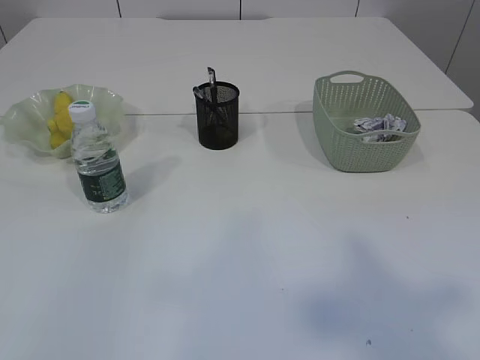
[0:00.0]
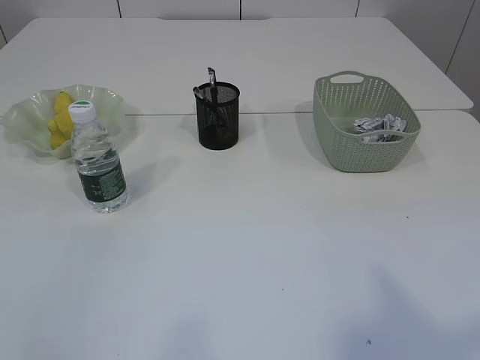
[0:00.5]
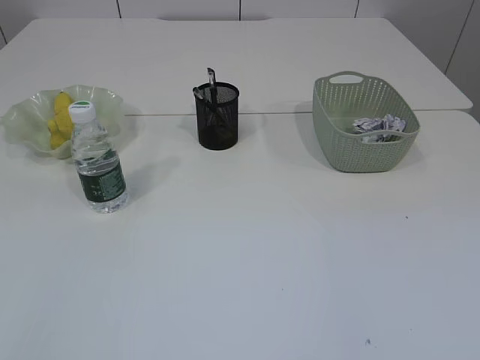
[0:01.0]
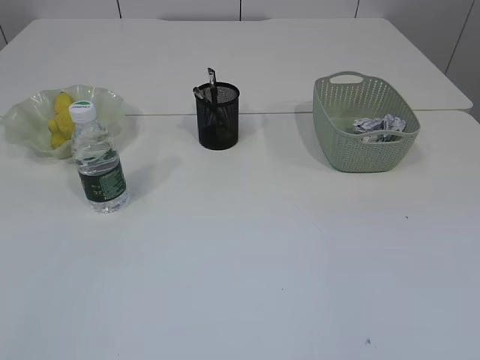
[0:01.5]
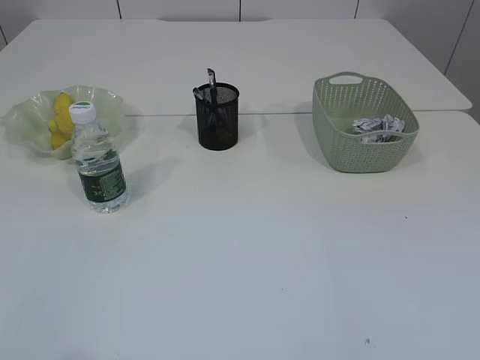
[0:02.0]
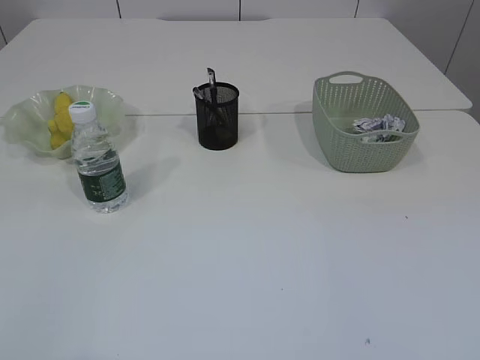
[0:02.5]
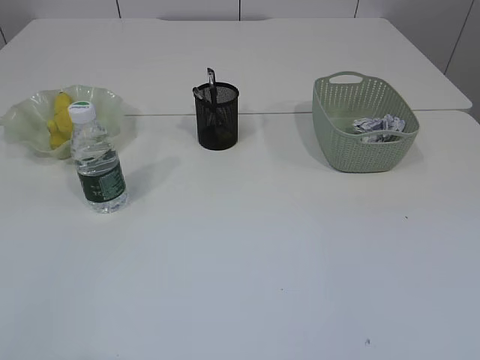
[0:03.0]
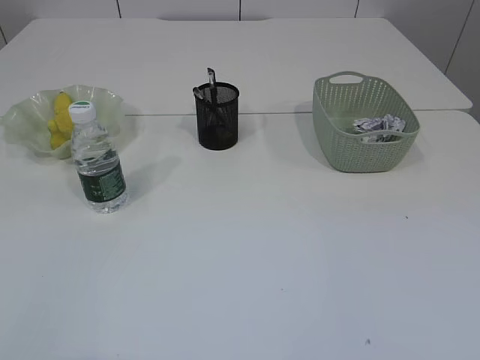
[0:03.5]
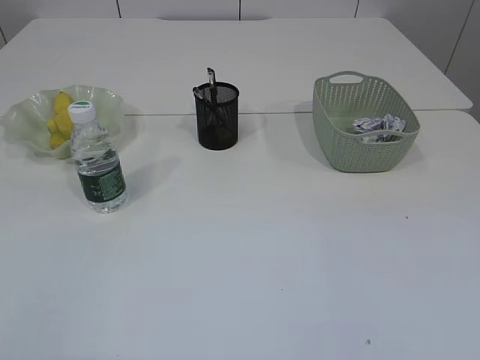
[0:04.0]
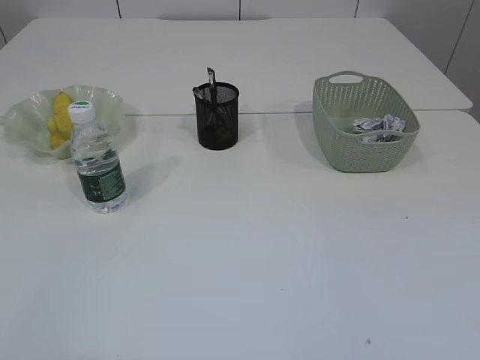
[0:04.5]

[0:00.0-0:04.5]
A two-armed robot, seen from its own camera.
0:00.0 to 0:02.0: The right gripper travels downward by about 25 cm.

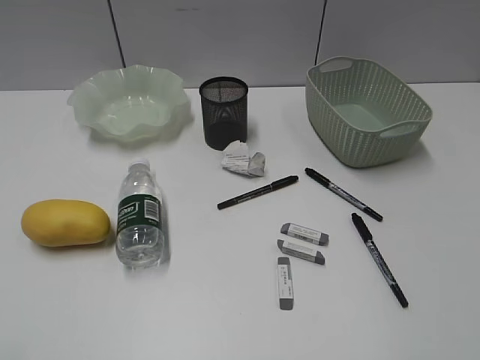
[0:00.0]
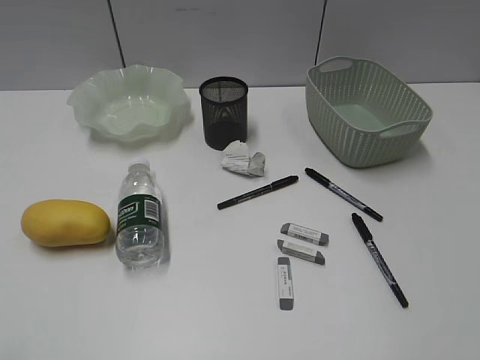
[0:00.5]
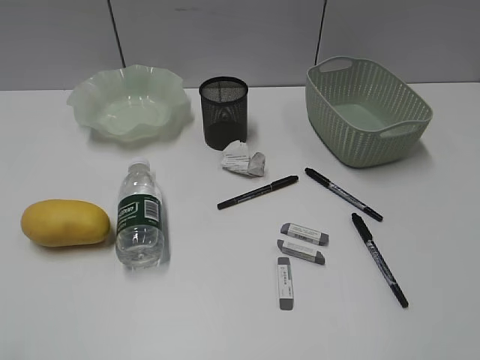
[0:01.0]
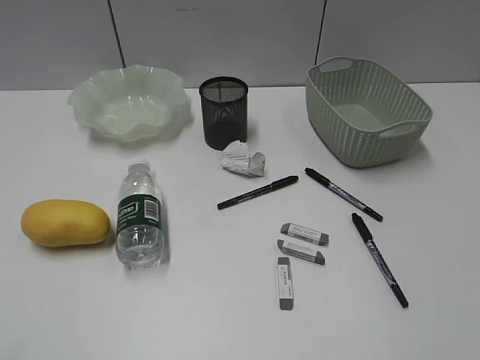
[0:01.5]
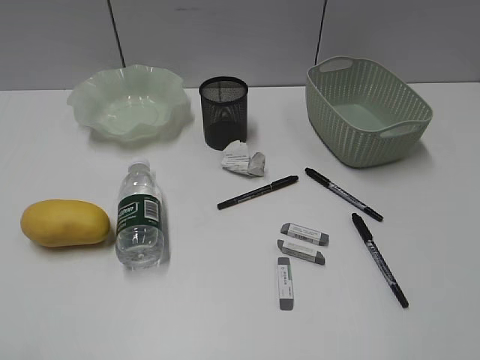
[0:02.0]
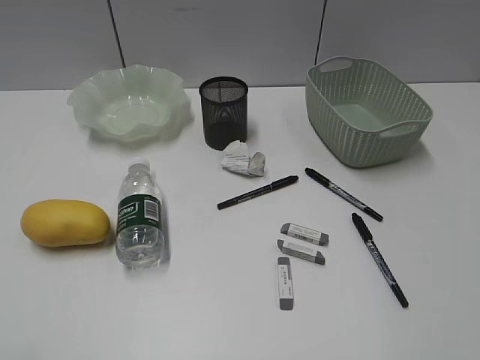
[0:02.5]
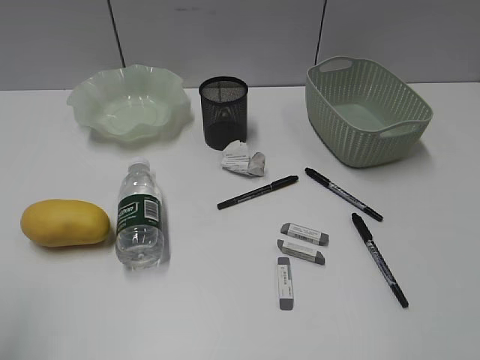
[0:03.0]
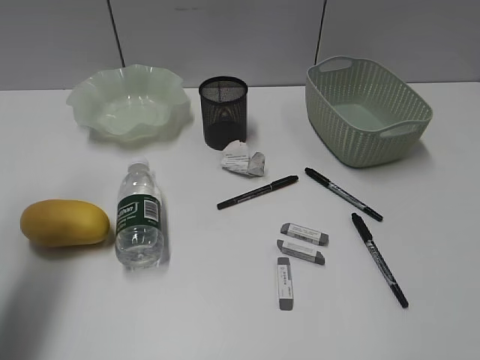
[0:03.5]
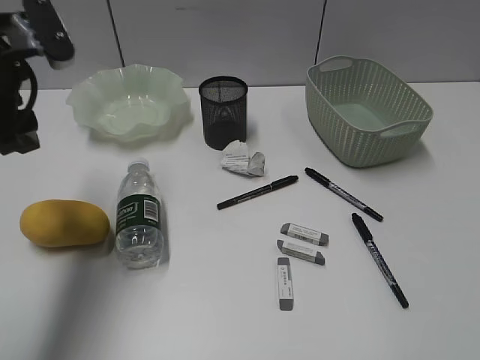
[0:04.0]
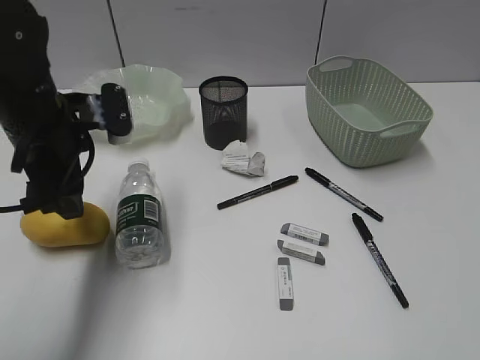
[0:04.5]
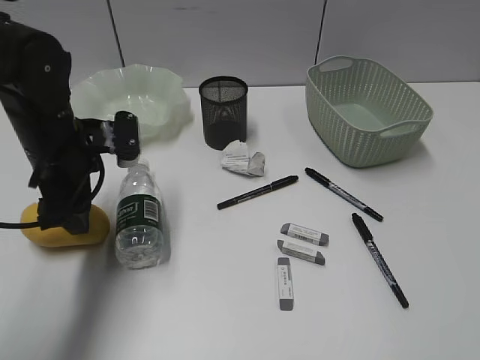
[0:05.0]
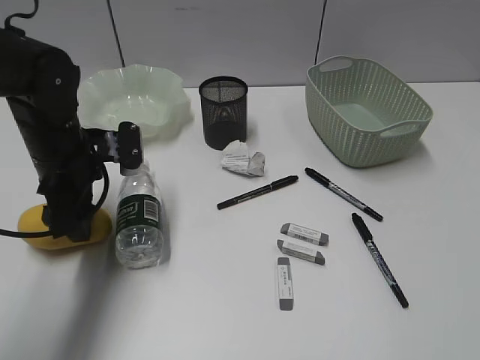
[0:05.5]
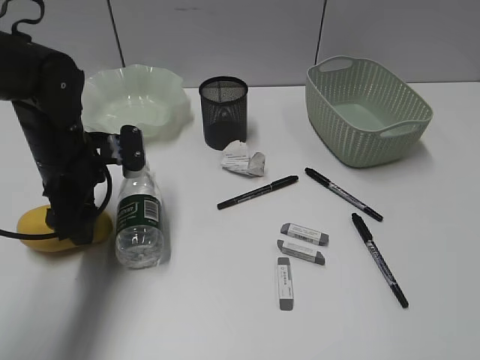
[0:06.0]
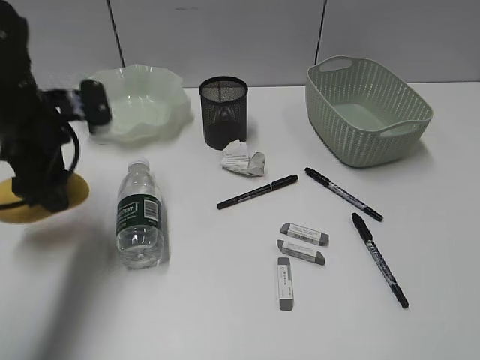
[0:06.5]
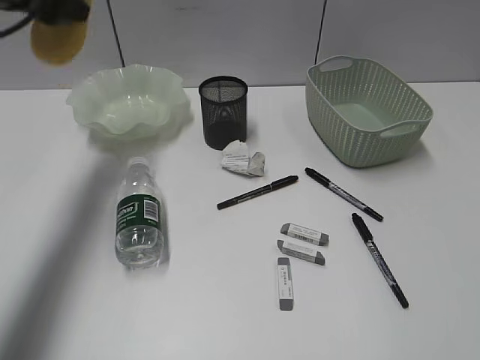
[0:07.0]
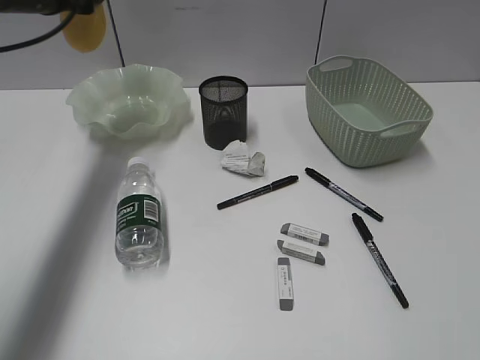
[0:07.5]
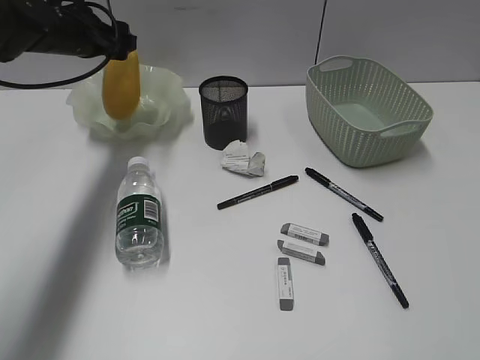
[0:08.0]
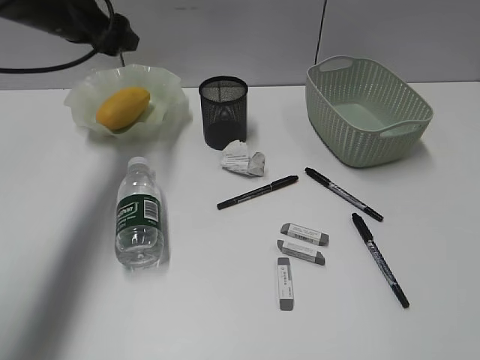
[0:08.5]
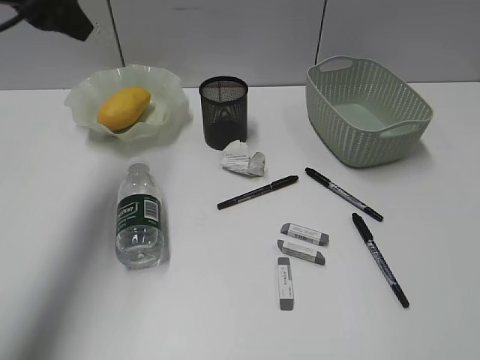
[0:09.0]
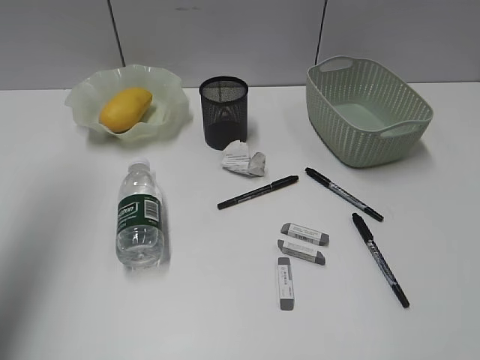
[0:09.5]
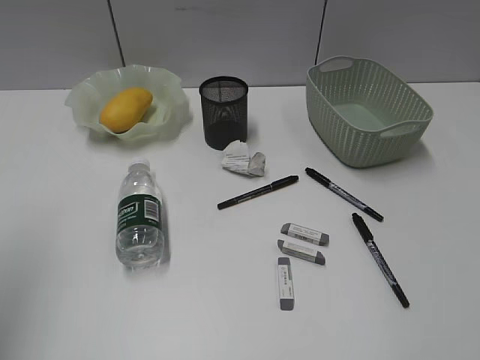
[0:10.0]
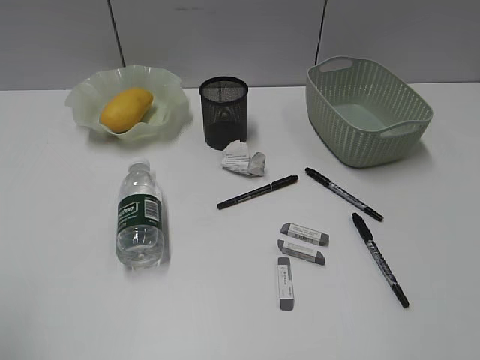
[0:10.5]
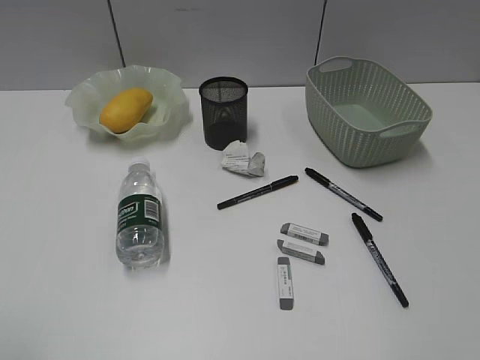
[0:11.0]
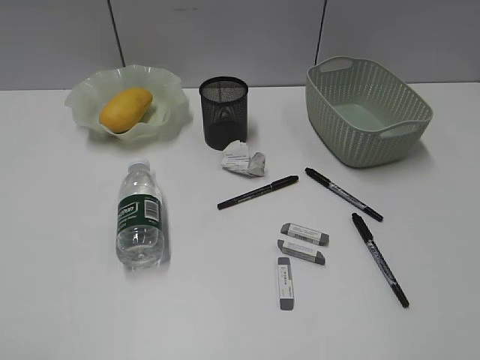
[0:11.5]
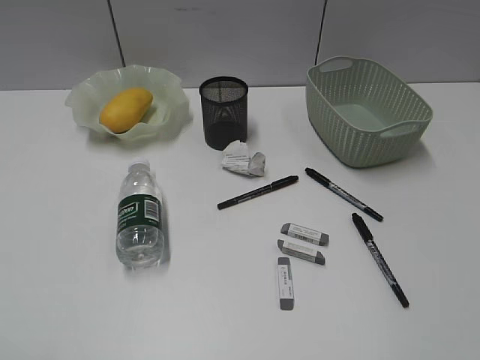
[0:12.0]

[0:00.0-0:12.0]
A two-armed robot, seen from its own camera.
Step, 0:04.0 to 0:06.0: Grasp the mango with left gripper.
Step, 0:06.5 to 0:08.0: Place the mango in the plate with left gripper.
0:02.0 to 0:04.0: The left gripper goes some 30 cm forward.
0:04.0 to 0:06.0: The left gripper goes about 15 cm downward.
0:06.0 to 0:08.0: The left gripper shifts roughly 15 cm forward and upward.
0:08.0 to 0:10.0: The left gripper is displaced backward and upward by approximately 35 cm.
0:10.0 to 0:12.0: The left gripper moves backward, roughly 15 cm.

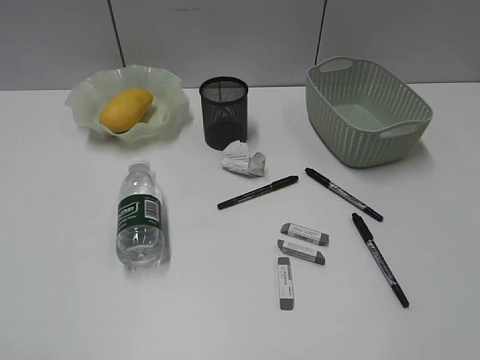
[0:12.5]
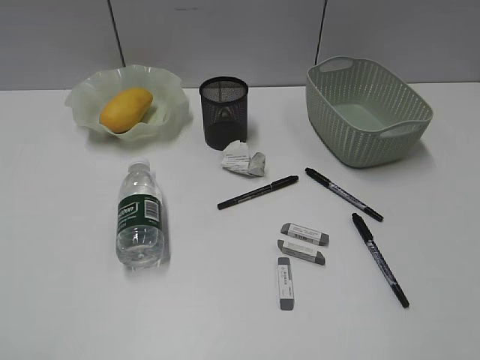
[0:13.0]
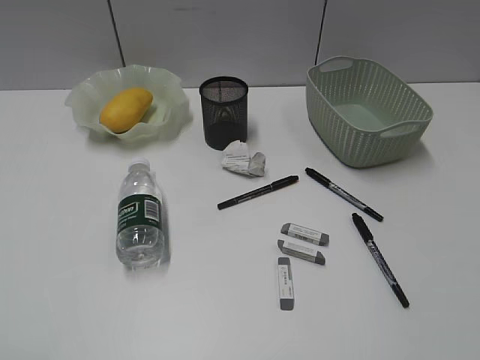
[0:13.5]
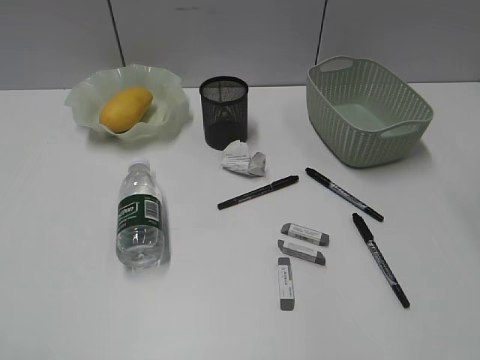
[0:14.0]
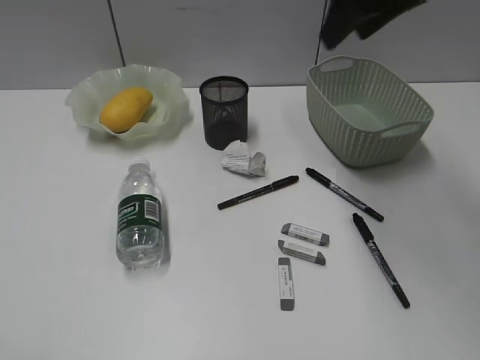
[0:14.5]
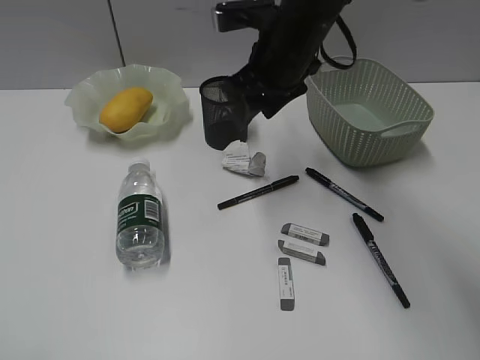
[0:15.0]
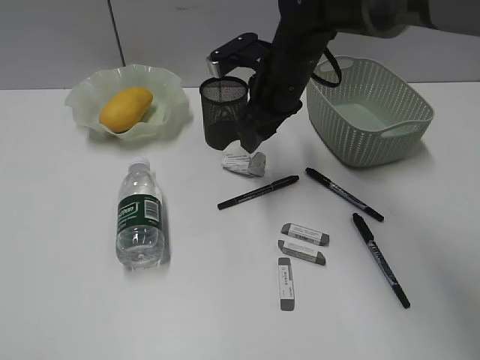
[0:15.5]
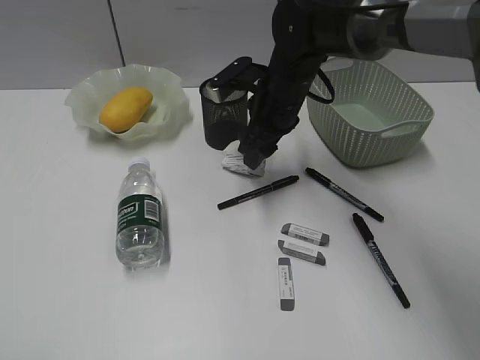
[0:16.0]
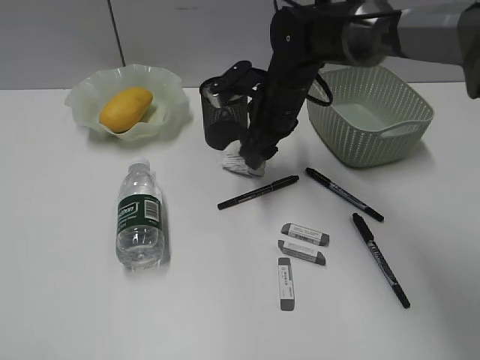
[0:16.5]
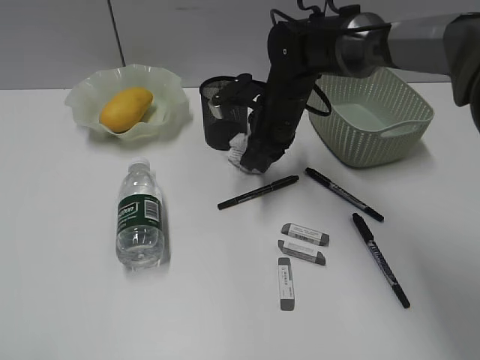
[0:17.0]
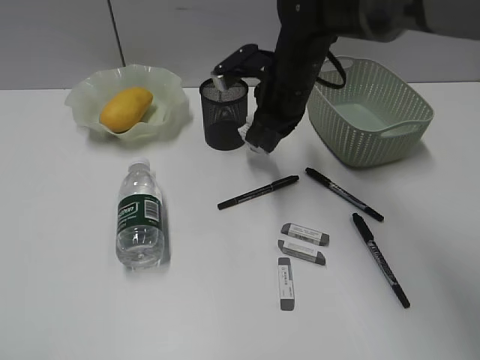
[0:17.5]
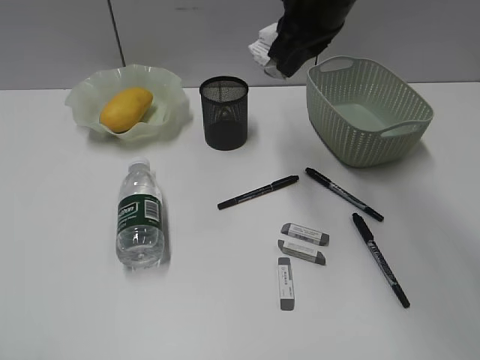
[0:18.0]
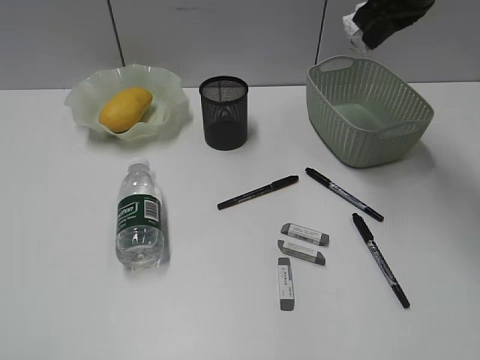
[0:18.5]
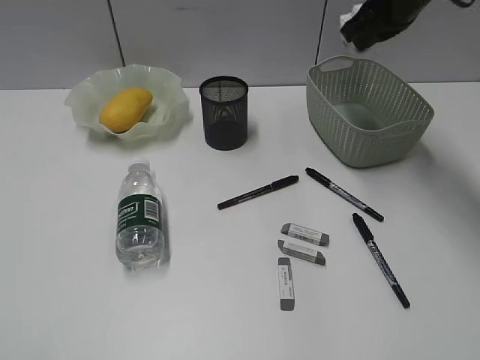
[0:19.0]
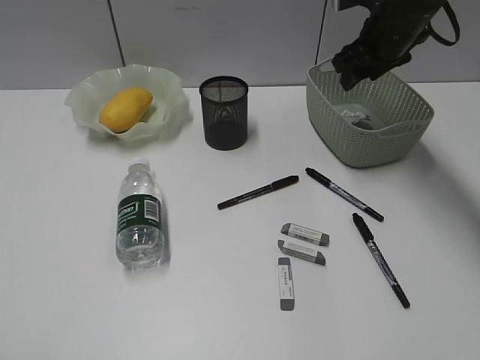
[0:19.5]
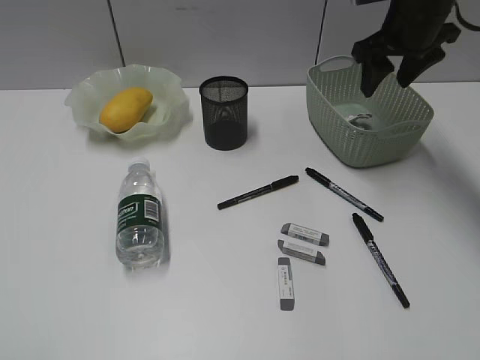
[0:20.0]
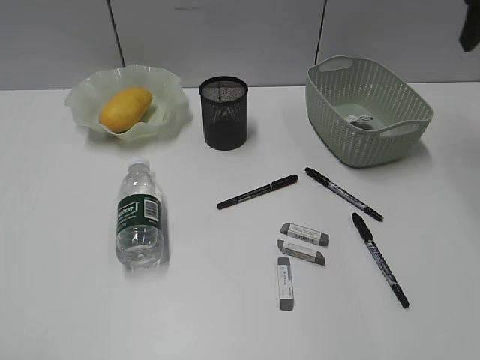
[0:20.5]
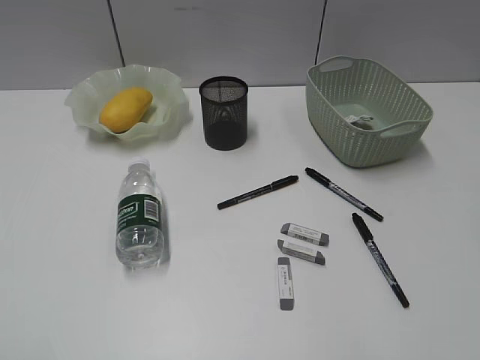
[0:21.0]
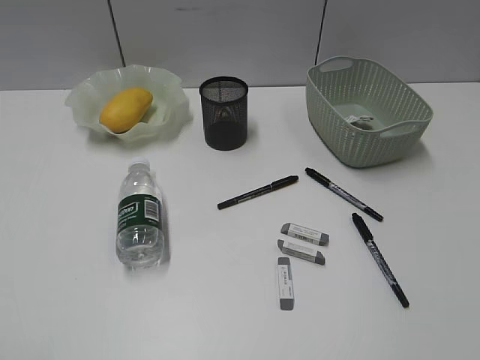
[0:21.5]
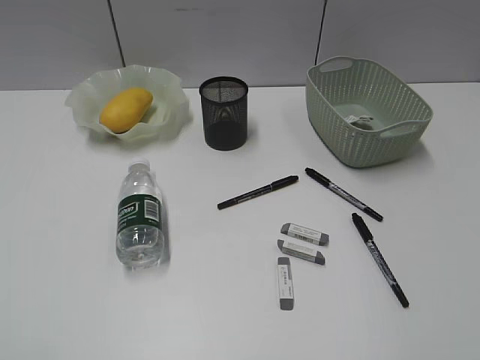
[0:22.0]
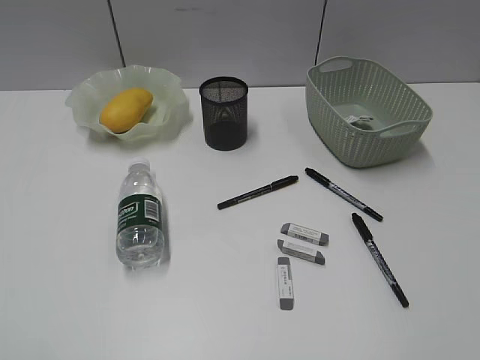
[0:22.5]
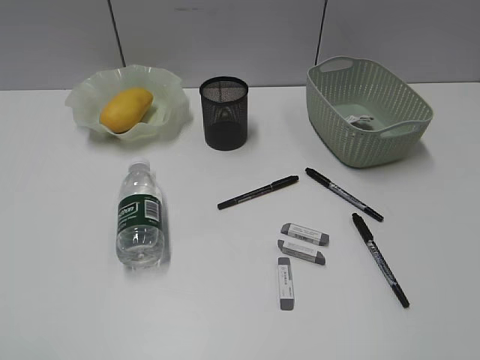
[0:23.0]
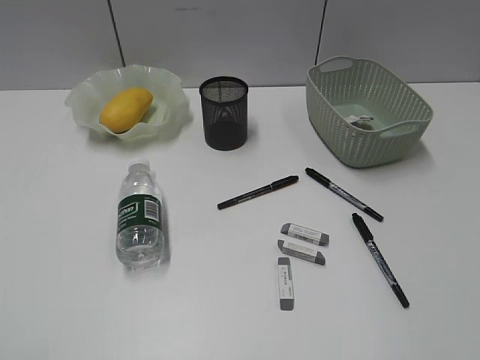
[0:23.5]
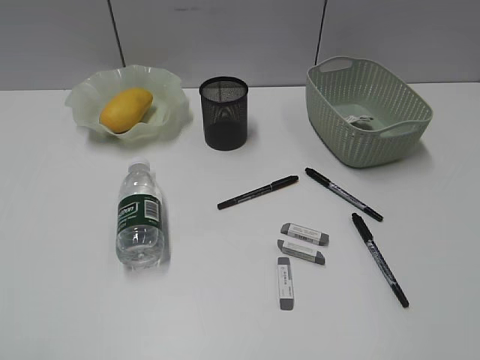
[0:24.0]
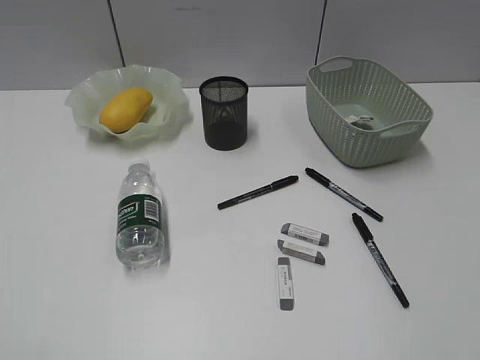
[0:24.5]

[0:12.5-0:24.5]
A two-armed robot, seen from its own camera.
Step, 0:12.5 to 0:17.0: Grasp the waste paper with right gripper.
Step, 0:17.5 to 0:19.5: Place the waste paper in the basket with right gripper.
0:12.5 to 0:14.5: The right gripper moves forward and to the left, roughly 40 cm.
0:14.5 to 0:16.5: The right gripper shifts approximately 20 cm downward and to the left.
0:16.5 to 0:18.5: The right gripper heads upward and to the right, covering approximately 20 cm, and closes its fingers.
0:18.5 to 0:20.5: The right gripper travels to the right by roughly 10 cm, travels downward and back again, some 10 cm each way, and opens up.
0:20.5 to 0:22.5: The right gripper heads backward, covering approximately 40 cm.
